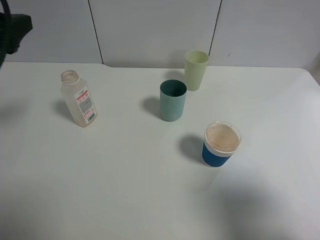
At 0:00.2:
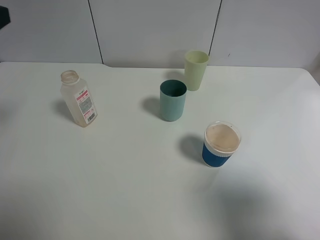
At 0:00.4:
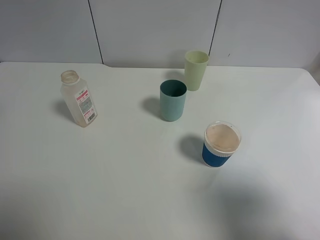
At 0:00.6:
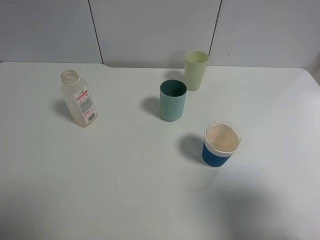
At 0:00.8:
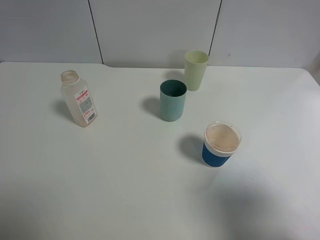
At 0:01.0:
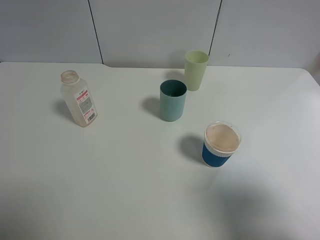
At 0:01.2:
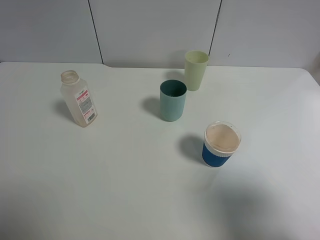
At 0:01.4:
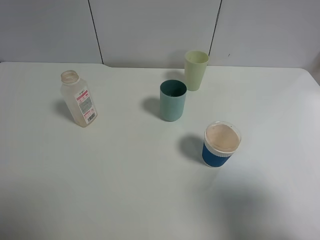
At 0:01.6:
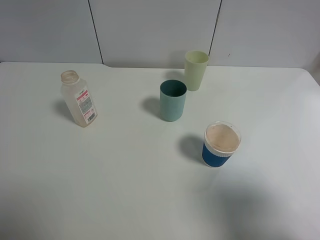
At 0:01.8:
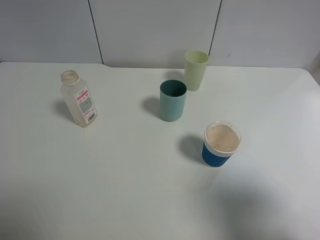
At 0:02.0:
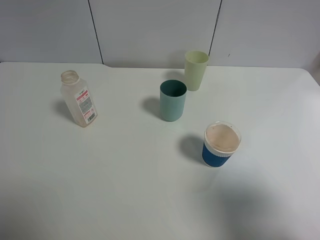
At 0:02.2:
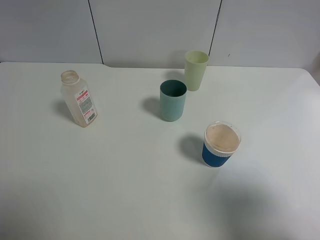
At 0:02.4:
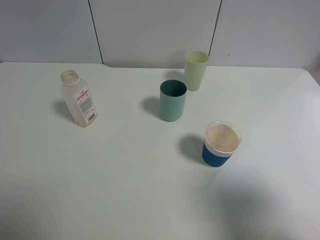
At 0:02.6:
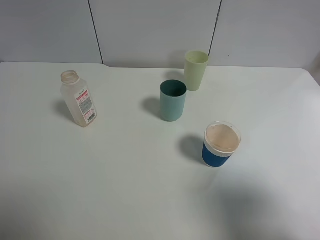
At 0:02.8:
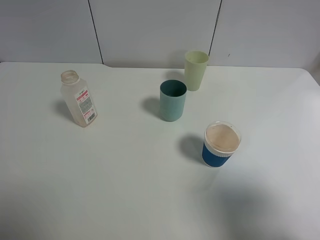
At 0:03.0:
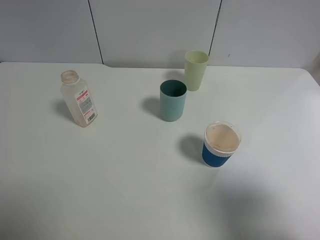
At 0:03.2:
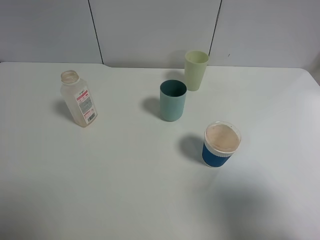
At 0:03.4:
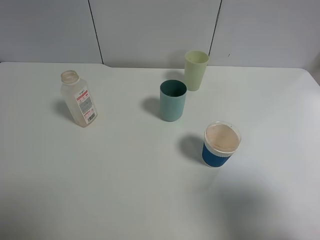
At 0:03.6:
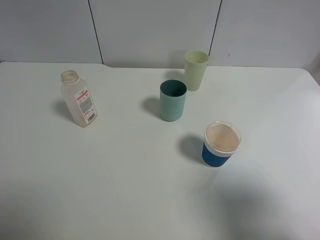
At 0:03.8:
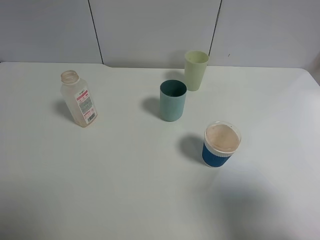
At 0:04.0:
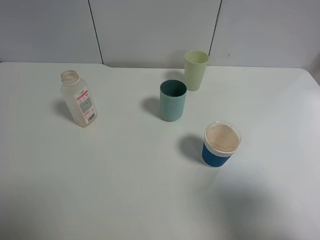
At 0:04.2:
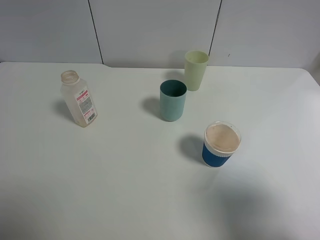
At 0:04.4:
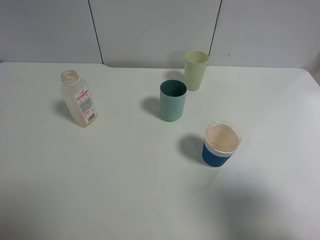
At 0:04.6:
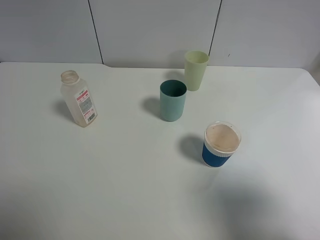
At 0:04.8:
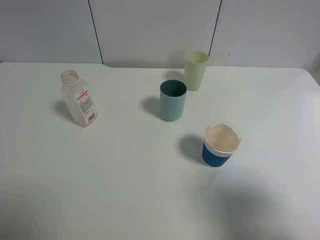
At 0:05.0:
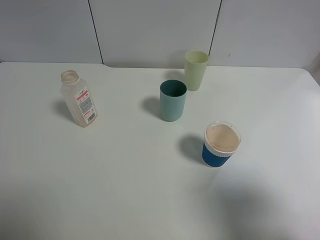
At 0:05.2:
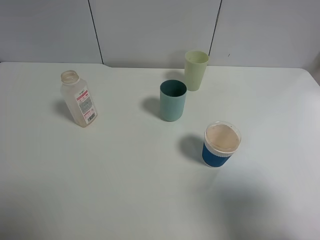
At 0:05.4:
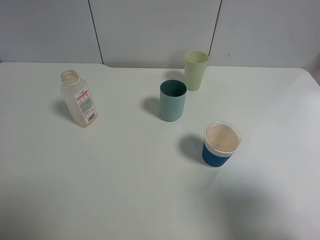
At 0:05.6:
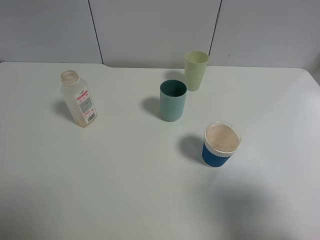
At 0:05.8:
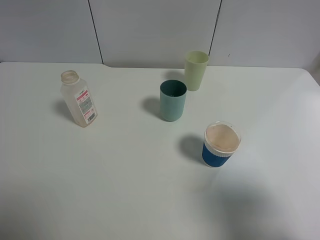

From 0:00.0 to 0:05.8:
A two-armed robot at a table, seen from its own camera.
Task of the whole recording: use a gripper to hold the bottle of the drink and pour it into a random cup.
From 0:00.0 to 0:01.4: The left gripper moves backward, roughly 20 cm.
From 0:02.8 to 0:05.8: Neither gripper changes place.
